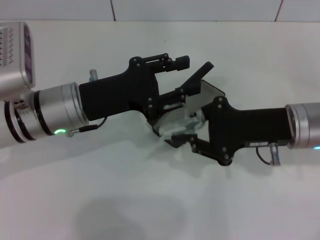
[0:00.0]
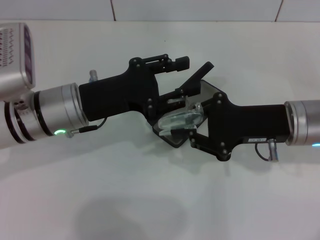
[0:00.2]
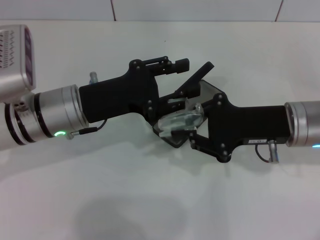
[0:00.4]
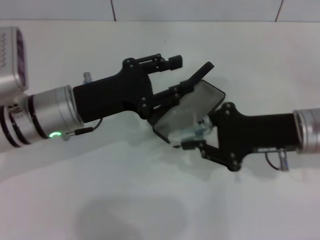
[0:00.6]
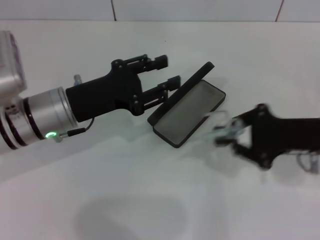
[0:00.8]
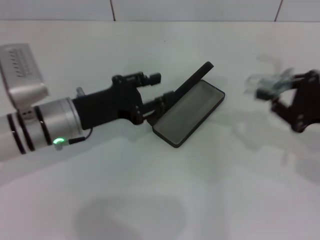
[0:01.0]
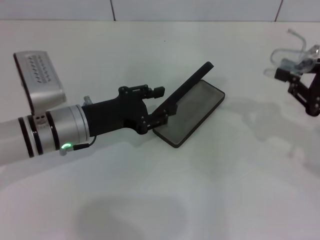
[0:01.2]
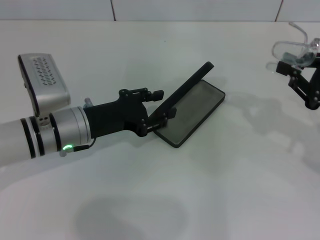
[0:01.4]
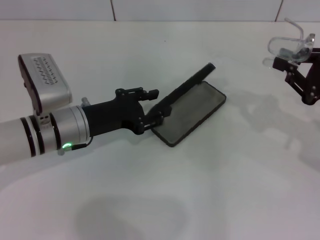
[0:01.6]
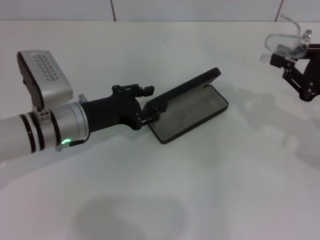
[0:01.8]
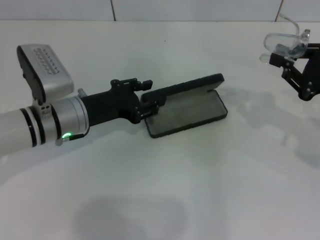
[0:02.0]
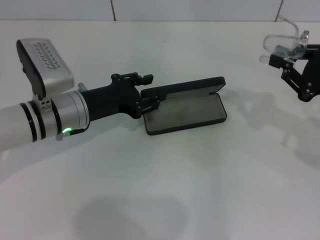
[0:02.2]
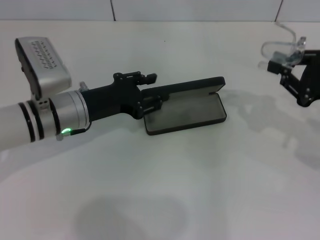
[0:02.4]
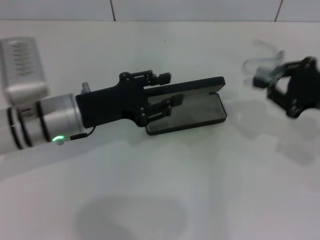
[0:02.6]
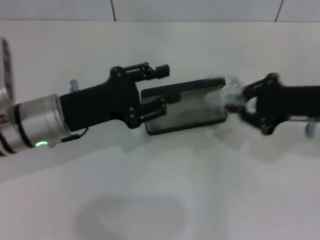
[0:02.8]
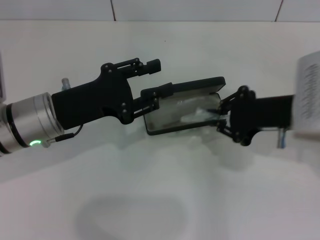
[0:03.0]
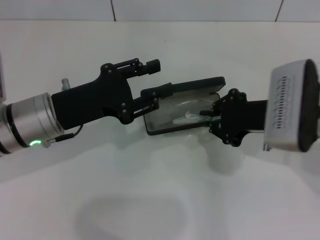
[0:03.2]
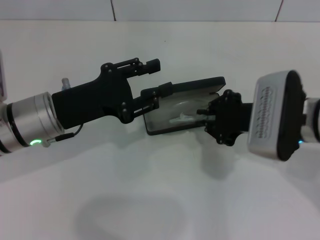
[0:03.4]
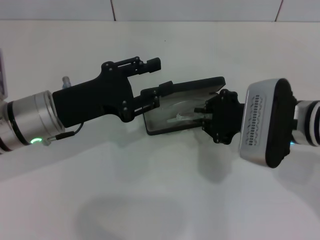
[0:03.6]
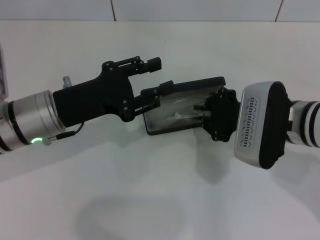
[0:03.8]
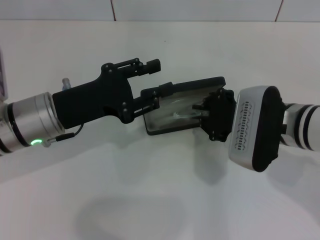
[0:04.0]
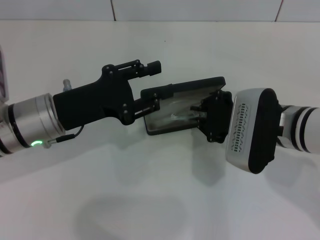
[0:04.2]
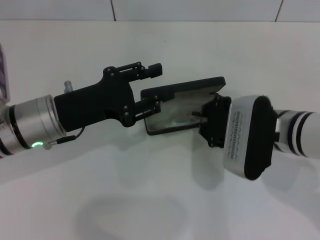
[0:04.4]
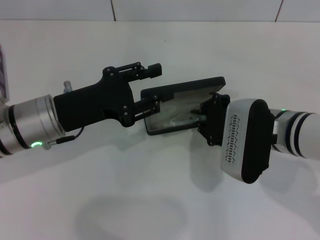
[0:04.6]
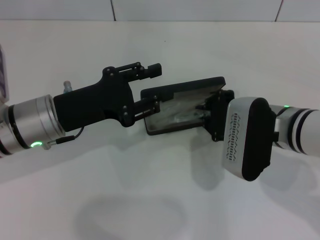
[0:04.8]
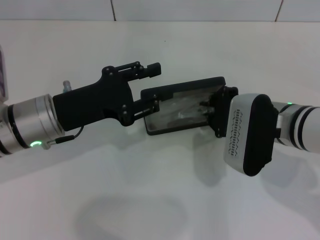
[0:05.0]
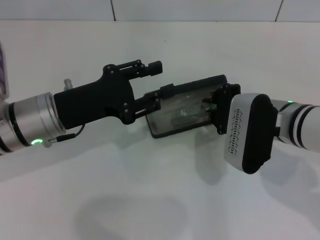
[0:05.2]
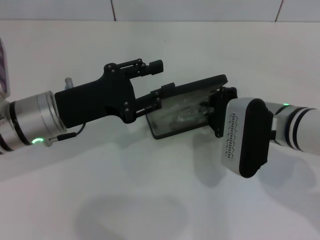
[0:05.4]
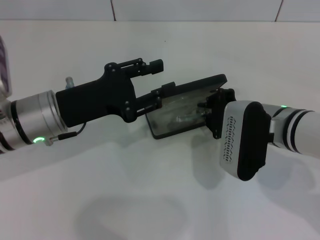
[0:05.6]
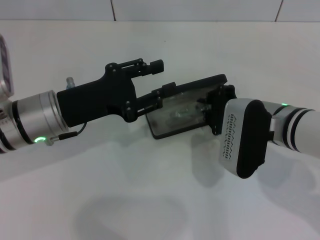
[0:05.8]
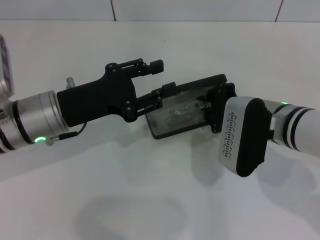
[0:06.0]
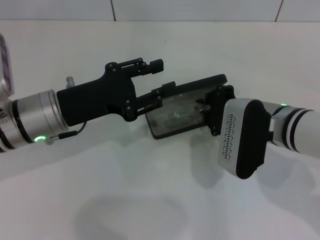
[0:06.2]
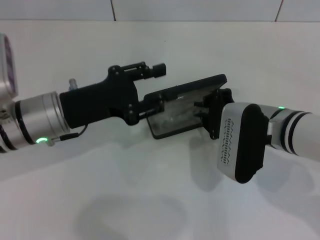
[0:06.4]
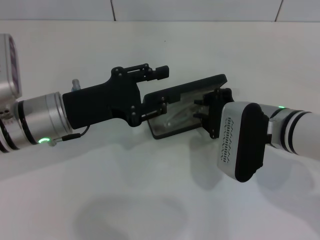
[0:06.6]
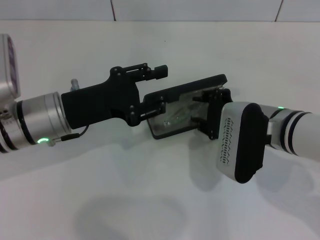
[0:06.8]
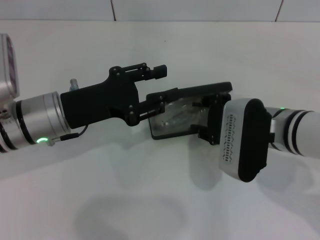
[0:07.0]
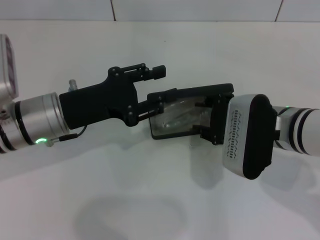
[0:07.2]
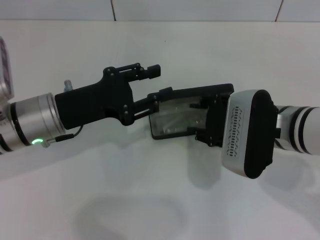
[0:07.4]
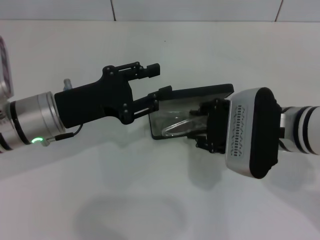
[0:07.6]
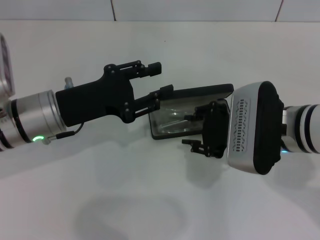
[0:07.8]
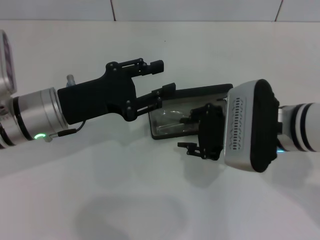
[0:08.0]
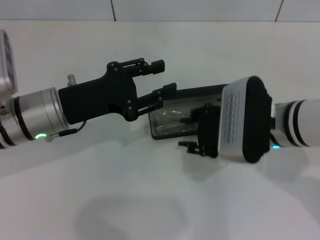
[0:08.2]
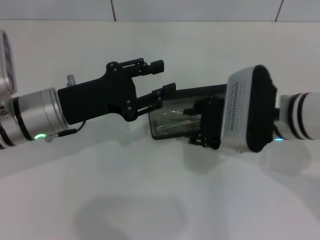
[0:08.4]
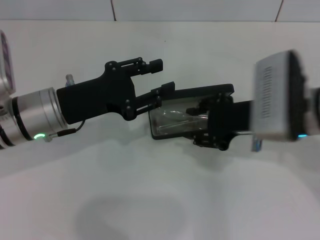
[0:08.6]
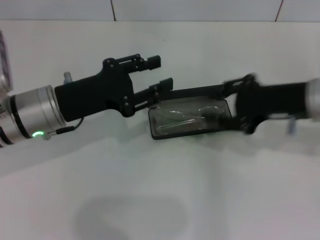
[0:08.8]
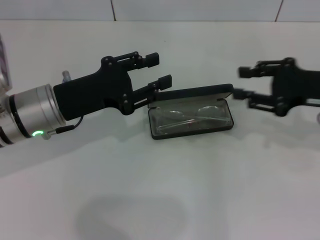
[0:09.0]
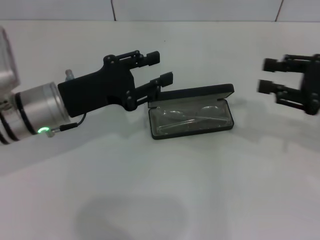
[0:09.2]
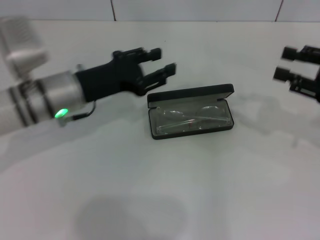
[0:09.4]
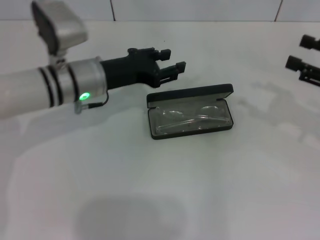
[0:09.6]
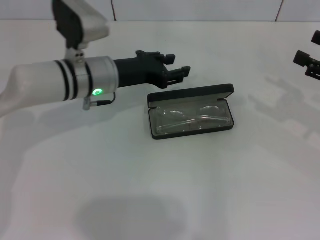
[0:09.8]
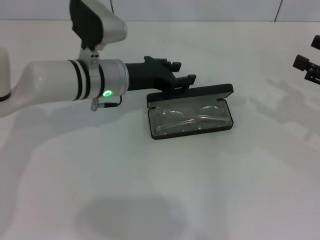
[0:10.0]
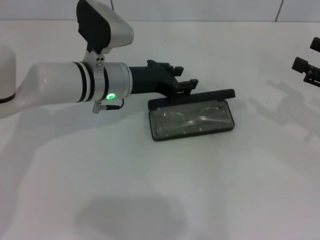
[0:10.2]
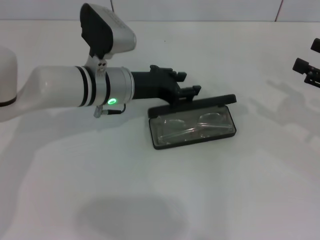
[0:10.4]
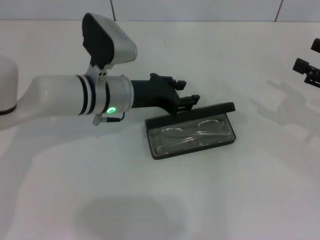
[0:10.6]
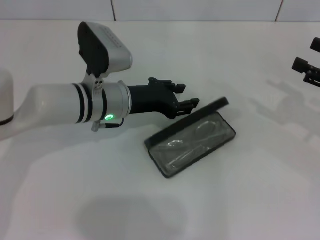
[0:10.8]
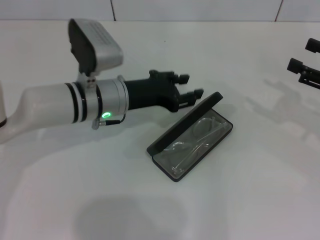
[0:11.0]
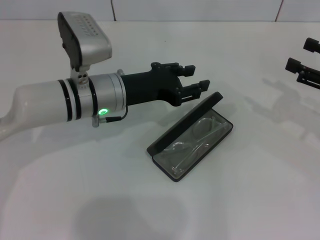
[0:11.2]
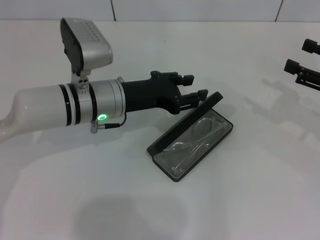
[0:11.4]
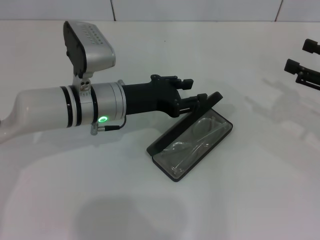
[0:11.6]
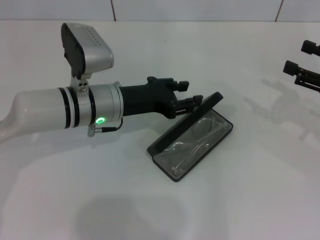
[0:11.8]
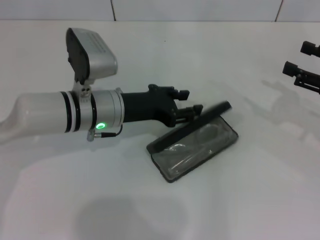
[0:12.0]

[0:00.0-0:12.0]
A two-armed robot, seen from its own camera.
Step, 0:00.6 to 0:08.0: Fold the frame with your left hand.
0:00.0 to 0:01.6: The left gripper heads downward, covering some 5 cm. The right gripper is displaced to the right by some 10 cm.
0:01.6 to 0:03.0: The left gripper changes place by some 5 cm. Meanwhile the right gripper shifts approximately 10 cm to the left.
0:03.0 to 0:04.4: The right gripper goes roughly 5 cm to the left.
0:04.4 to 0:06.0: There are only small adjustments of the grippers.
0:06.0 to 0:07.6: The right gripper opens up.
0:07.6 to 0:09.0: The right gripper travels to the right by some 15 cm.
0:09.0 to 0:10.4: The right gripper shifts roughly 5 cm to the right. The left gripper heads to the right and forward, covering roughly 10 cm.

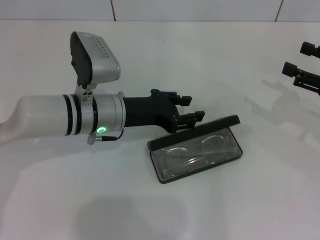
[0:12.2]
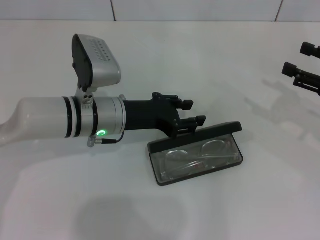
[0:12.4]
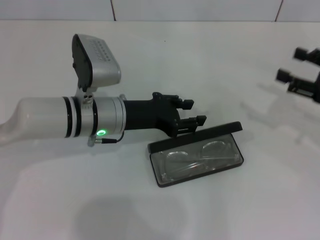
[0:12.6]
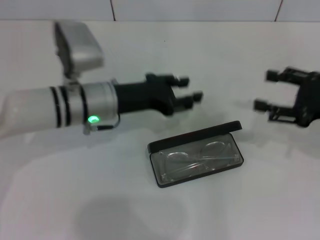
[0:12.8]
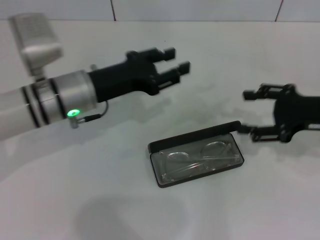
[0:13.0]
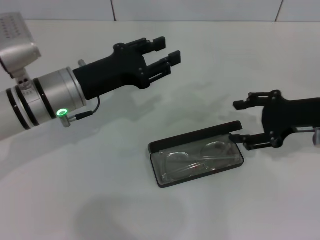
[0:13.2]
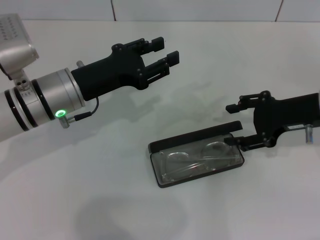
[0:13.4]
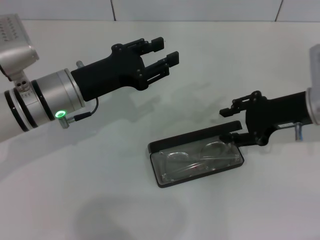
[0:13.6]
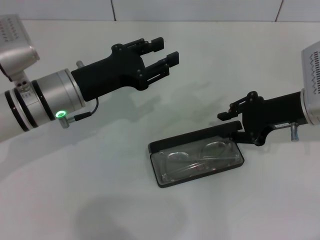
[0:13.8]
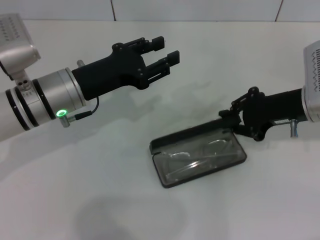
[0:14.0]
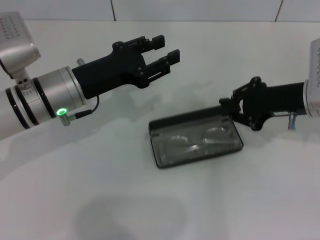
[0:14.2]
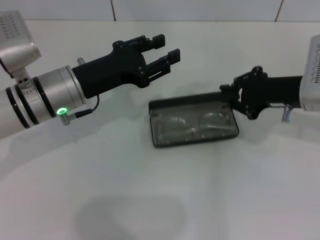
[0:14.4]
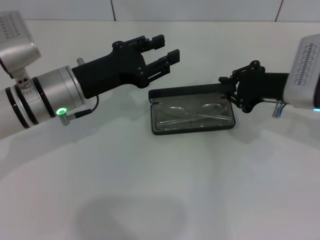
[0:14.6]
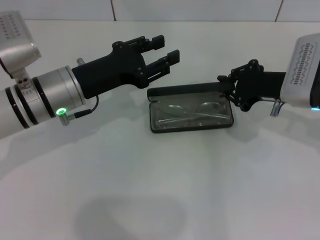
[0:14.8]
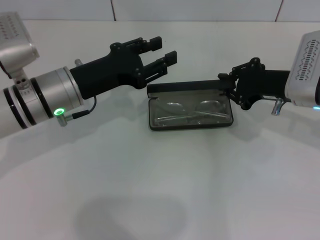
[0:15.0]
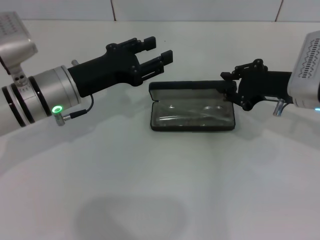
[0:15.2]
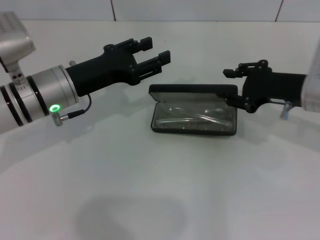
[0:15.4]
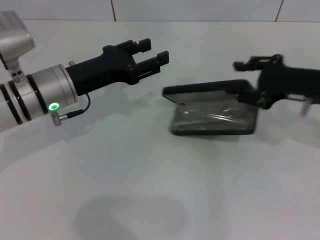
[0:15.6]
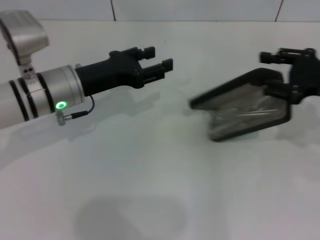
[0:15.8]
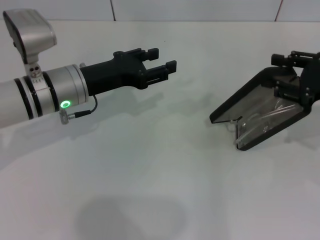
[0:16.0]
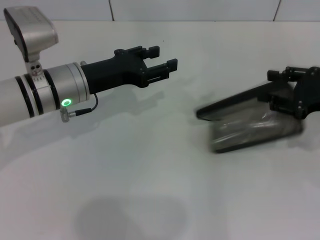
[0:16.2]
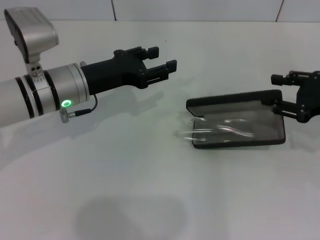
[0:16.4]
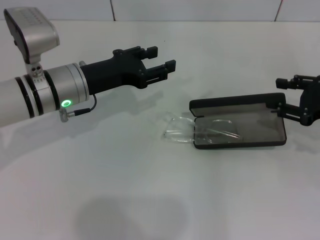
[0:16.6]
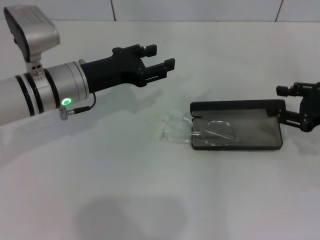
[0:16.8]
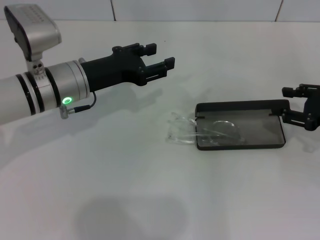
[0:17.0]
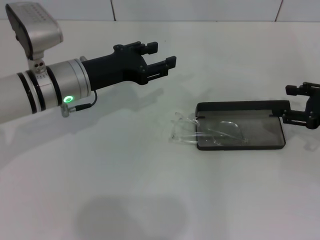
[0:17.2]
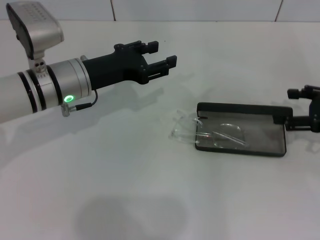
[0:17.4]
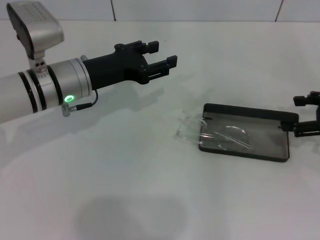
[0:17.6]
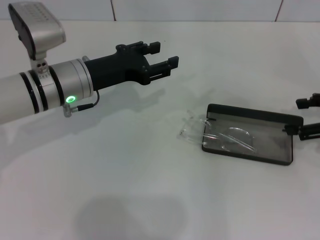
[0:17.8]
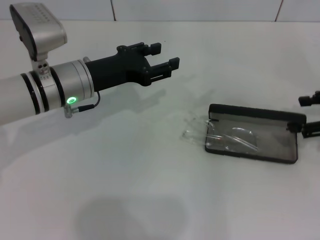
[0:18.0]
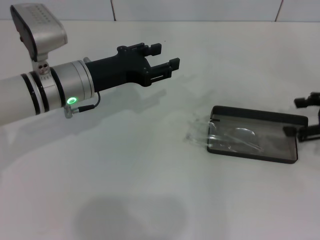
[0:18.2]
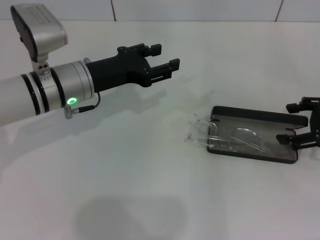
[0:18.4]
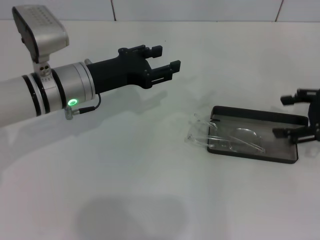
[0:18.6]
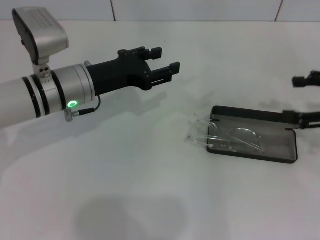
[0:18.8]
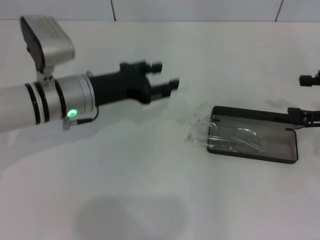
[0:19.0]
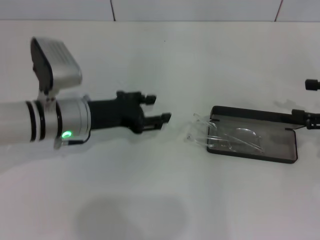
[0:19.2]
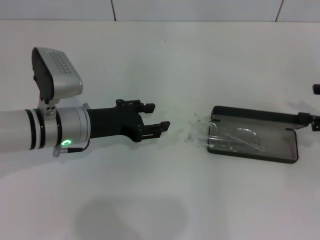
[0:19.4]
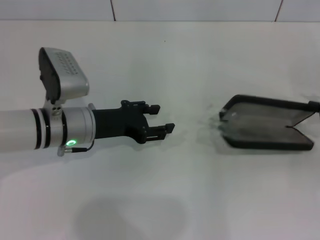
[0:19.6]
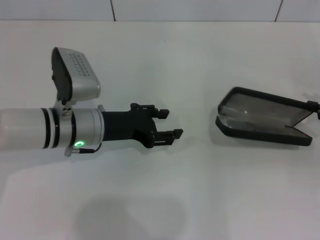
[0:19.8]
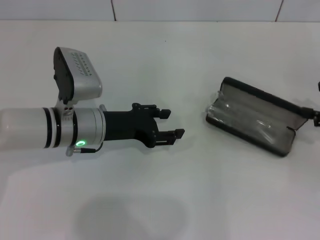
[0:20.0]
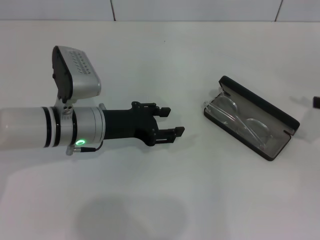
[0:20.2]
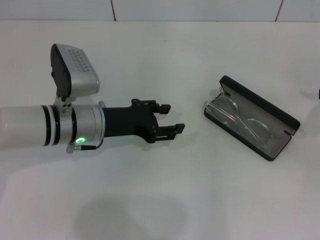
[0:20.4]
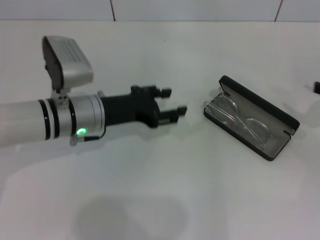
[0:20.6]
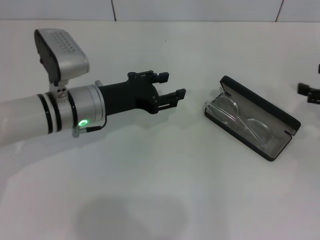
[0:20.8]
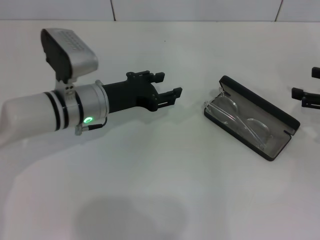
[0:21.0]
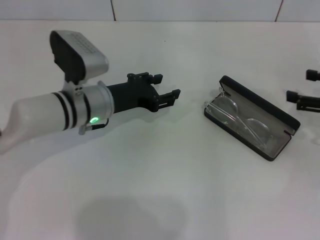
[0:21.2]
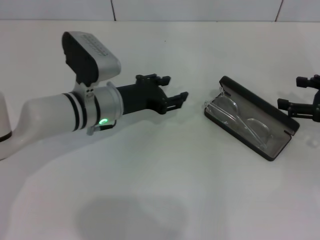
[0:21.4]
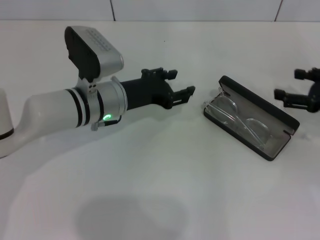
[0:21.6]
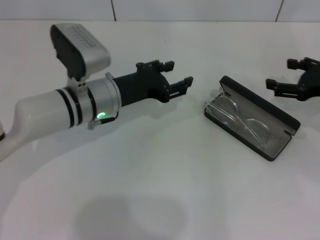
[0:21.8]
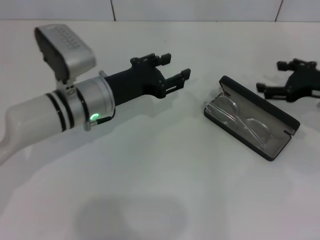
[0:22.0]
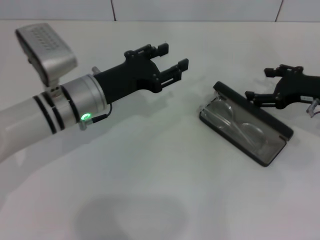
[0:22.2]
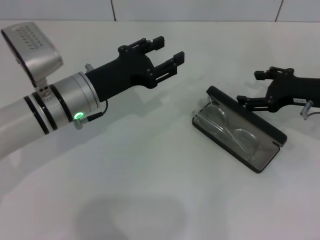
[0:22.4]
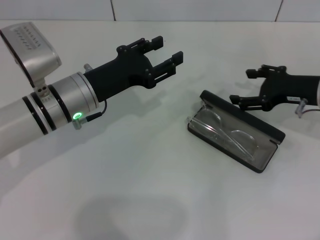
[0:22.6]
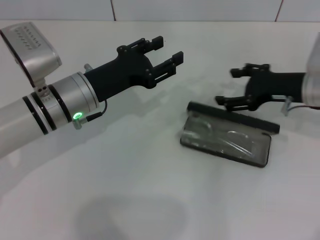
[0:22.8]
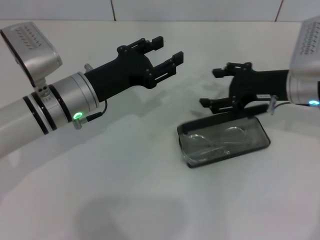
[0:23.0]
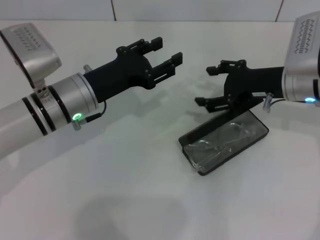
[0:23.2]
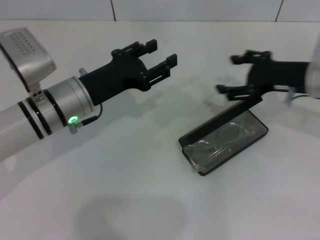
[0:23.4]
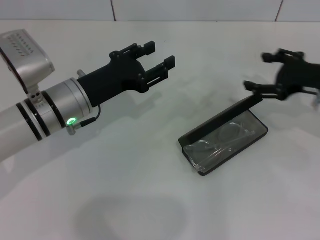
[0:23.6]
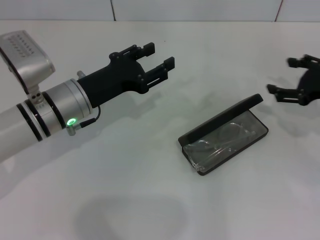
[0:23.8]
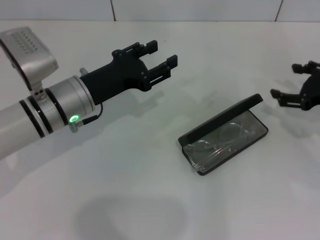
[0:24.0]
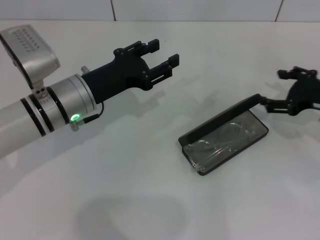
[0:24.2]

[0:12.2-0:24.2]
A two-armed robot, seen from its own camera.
Step, 0:14.0 to 0:18.2: Place the glasses case in the center of the table with your right hand.
0:12.2 to 0:13.8: The right gripper goes some 10 cm to the left. The left gripper goes roughly 5 cm to the left.
0:13.8 to 0:15.2: The right gripper closes its fingers.
0:15.2 to 0:16.6: The right gripper is displaced to the right by some 10 cm, and opens.
0:16.6 to 0:18.2: The right gripper opens.
0:18.2 to 0:19.8: The left gripper moves about 5 cm.
0:19.8 to 0:21.2: The grippers stay close to where they were, moving slightly.
0:21.2 to 0:22.6: The right gripper goes roughly 10 cm to the left and forward.
0:22.6 to 0:24.2: The right gripper goes to the left and returns, roughly 5 cm each way.
